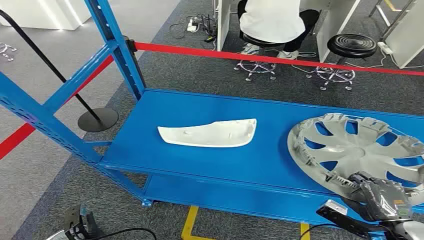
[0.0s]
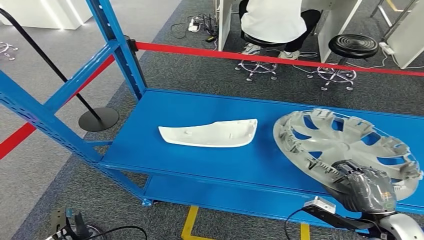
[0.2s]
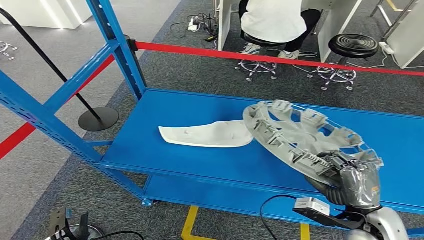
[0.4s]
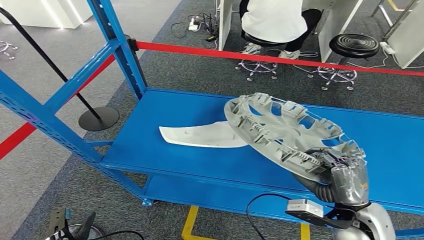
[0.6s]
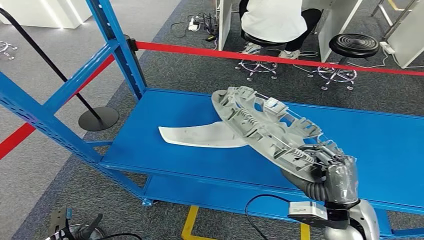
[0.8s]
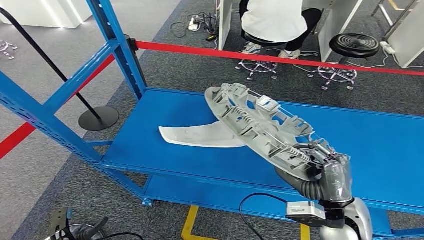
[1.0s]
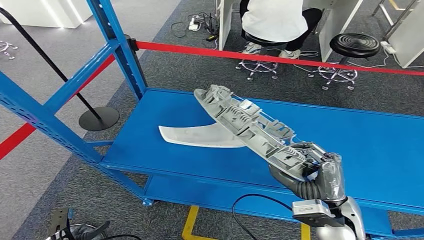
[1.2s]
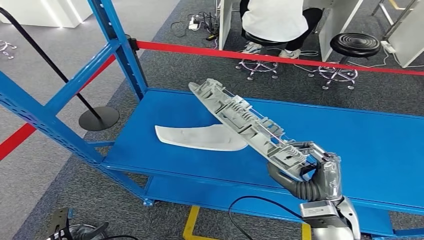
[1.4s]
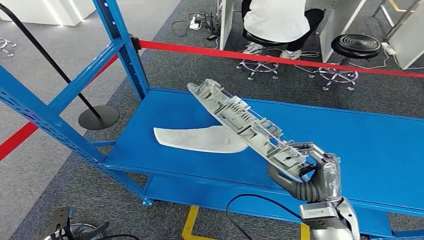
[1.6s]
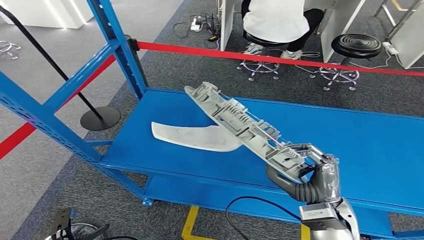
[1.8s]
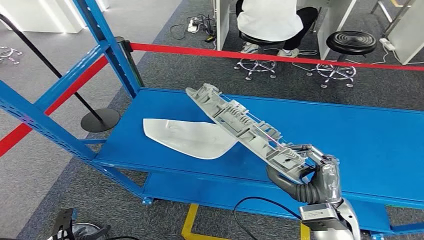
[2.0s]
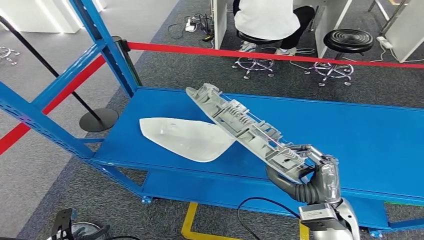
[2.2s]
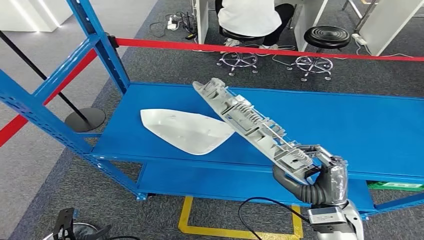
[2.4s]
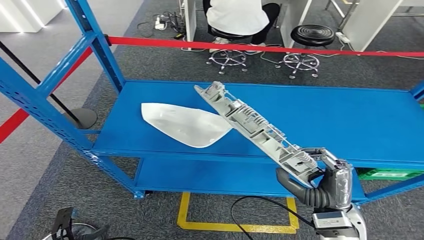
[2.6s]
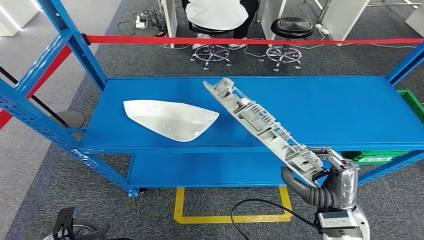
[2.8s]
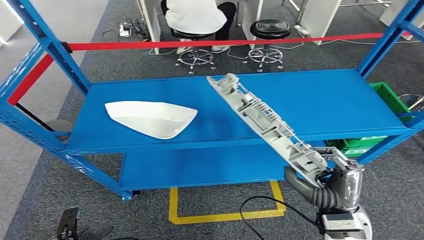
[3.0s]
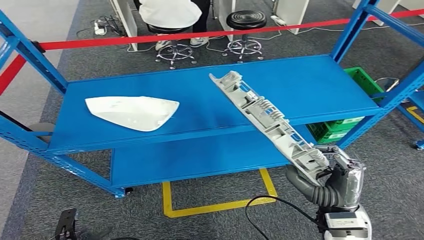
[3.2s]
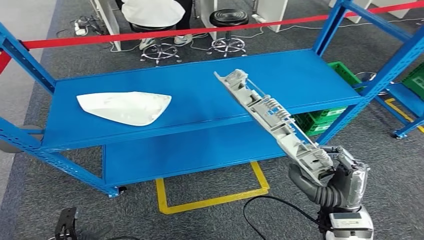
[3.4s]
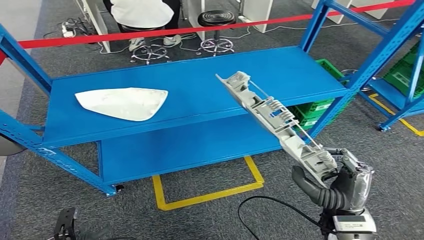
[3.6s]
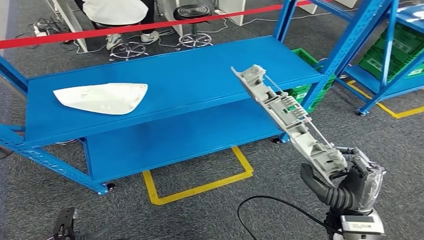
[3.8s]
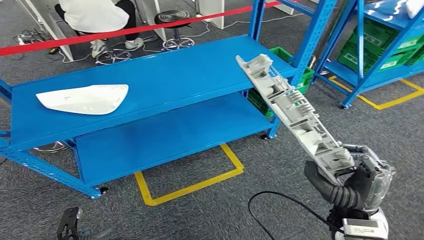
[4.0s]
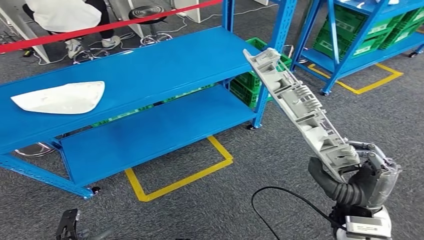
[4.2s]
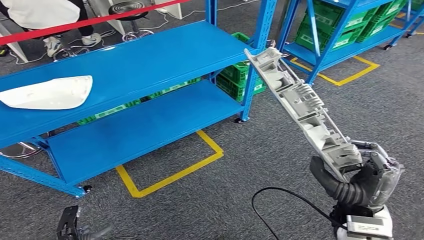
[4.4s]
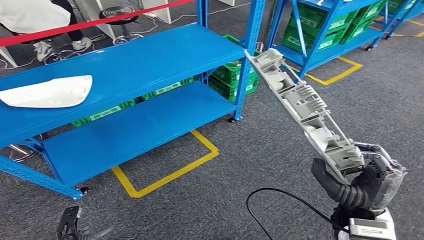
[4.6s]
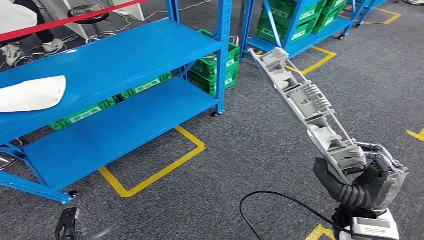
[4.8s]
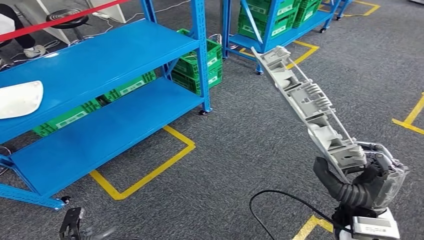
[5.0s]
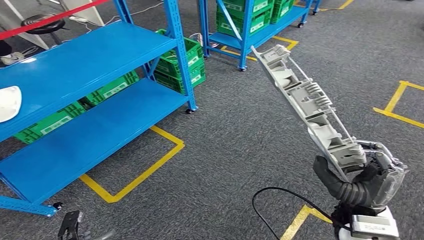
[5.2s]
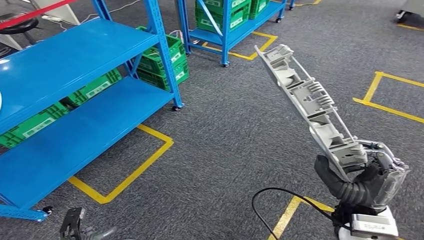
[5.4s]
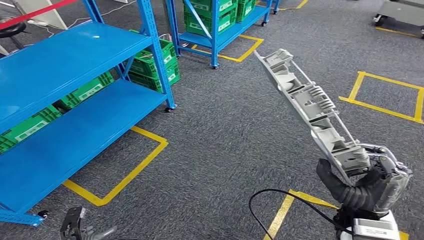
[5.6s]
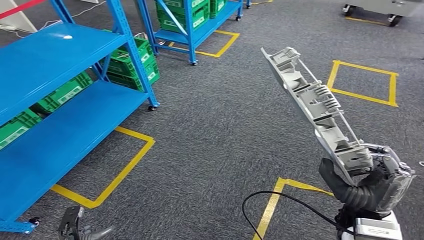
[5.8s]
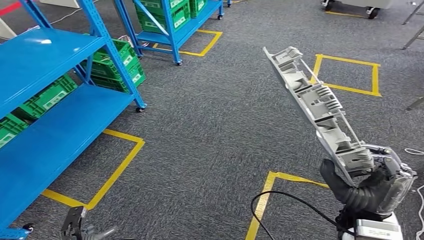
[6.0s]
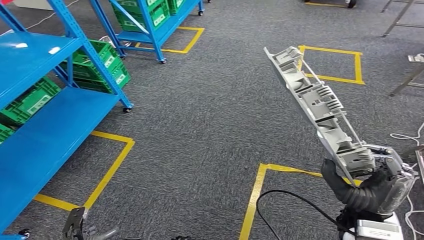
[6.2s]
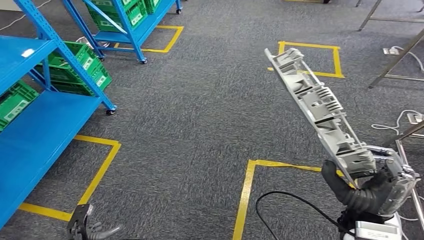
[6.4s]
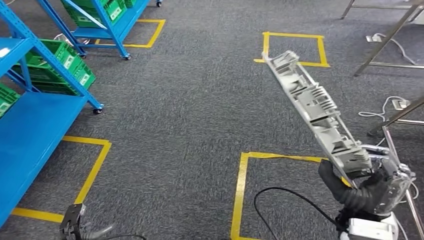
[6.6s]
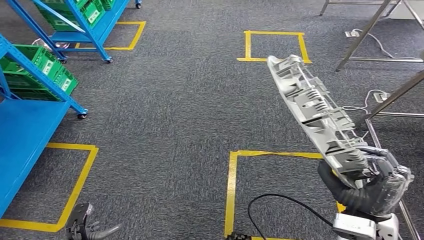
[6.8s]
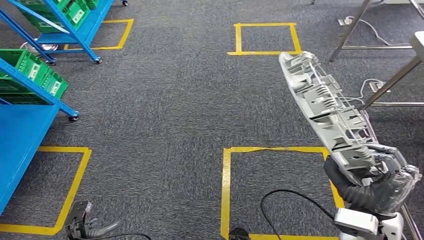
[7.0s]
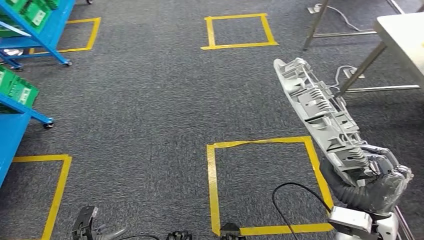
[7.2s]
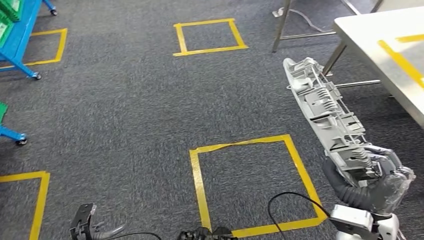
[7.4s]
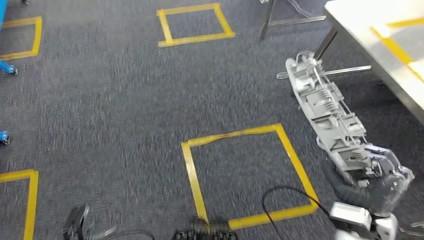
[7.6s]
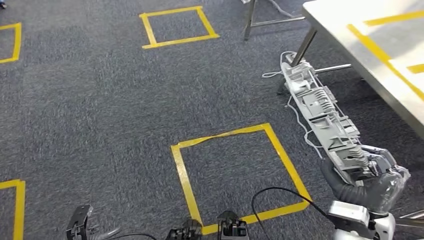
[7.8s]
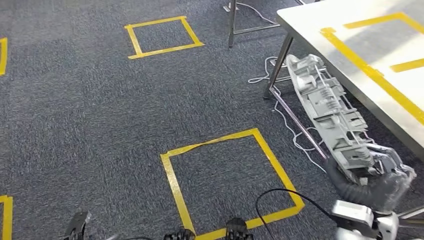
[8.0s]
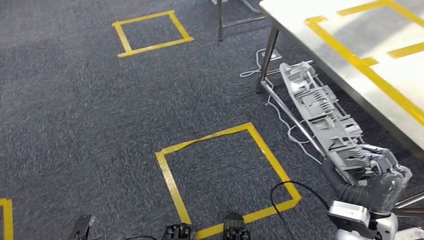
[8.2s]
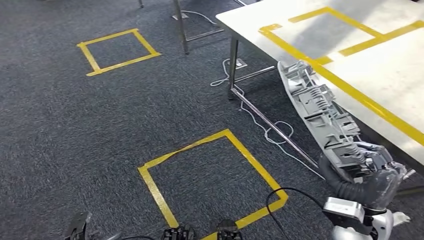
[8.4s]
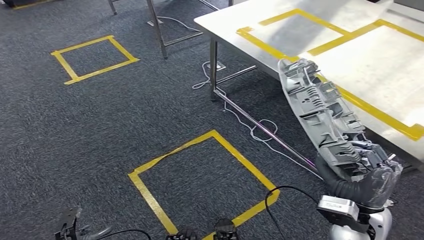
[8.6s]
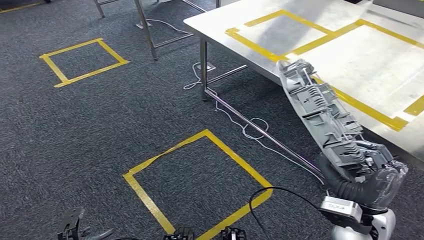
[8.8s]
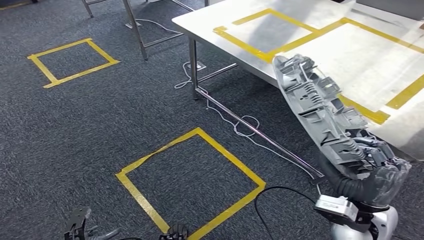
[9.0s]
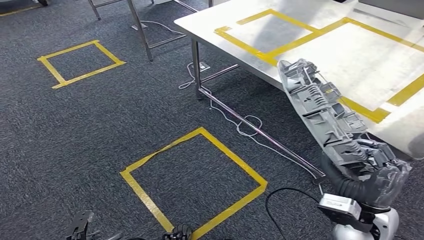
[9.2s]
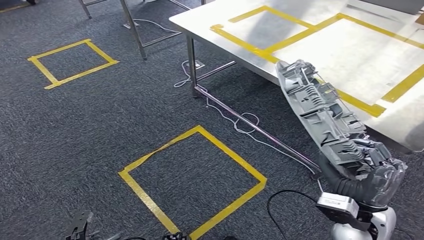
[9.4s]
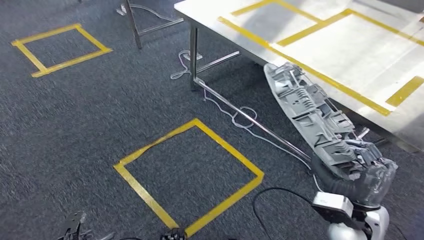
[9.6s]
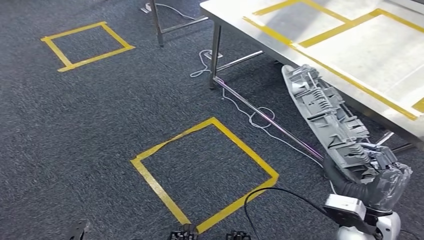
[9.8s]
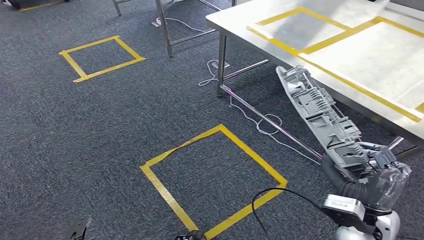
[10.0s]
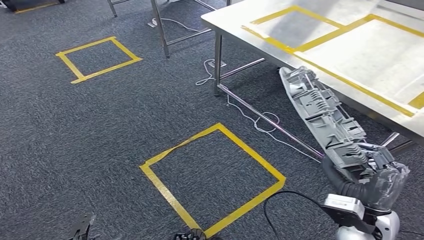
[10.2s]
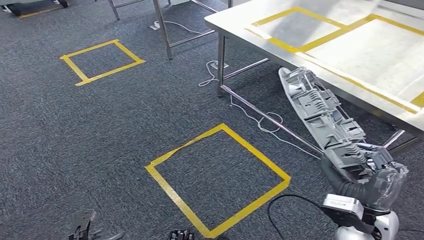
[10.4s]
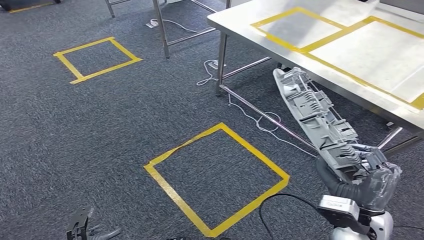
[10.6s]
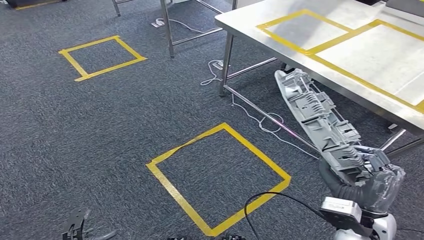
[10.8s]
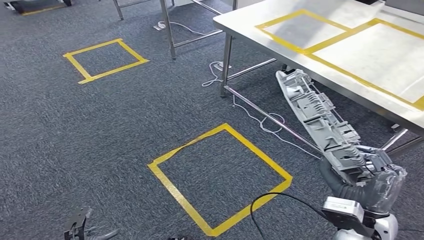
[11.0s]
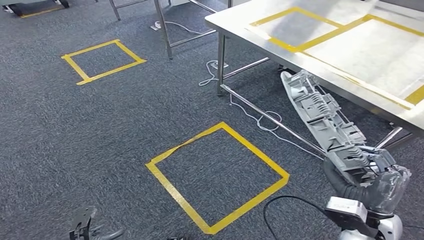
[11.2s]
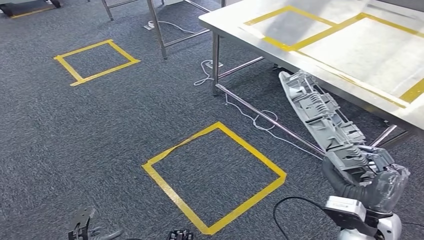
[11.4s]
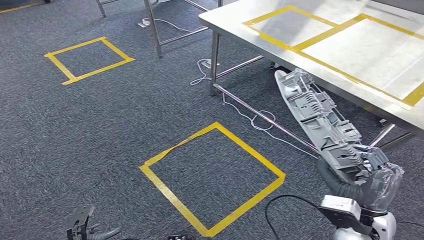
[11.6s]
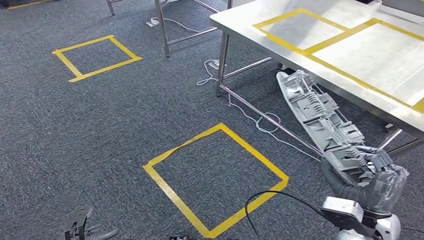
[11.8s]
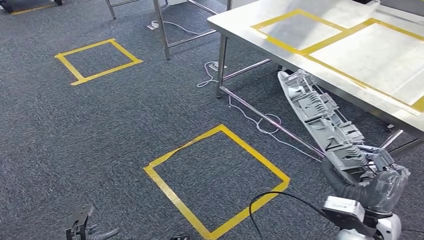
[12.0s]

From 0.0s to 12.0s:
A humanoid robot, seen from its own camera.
Step, from 0.0s to 3.6s: Pick up the small component from the shelf.
Step, from 3.8s to 9.2s: Move the small component to the workbench.
From 10.4s to 12.0s: Both hands stay put.

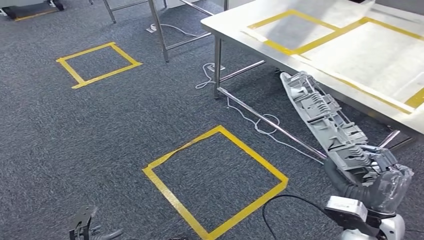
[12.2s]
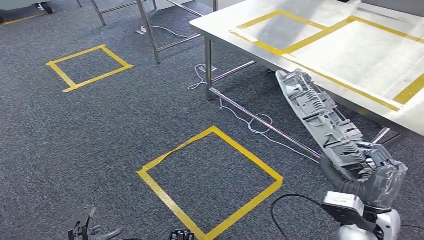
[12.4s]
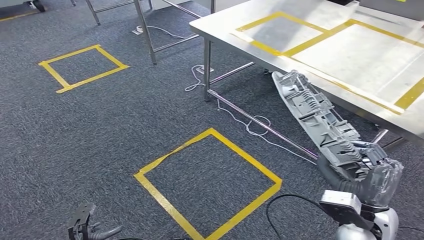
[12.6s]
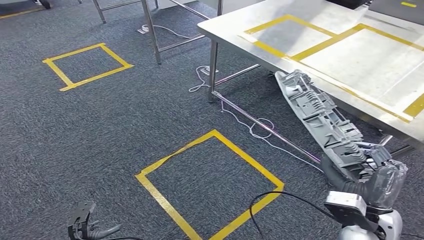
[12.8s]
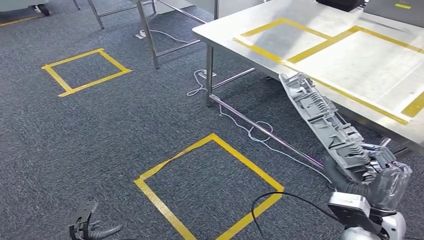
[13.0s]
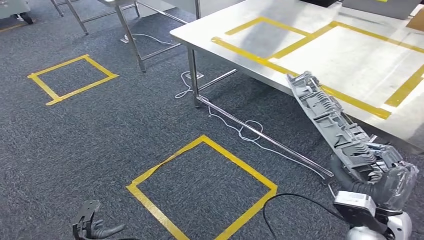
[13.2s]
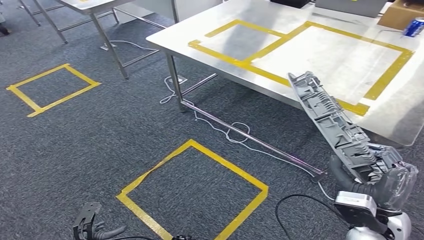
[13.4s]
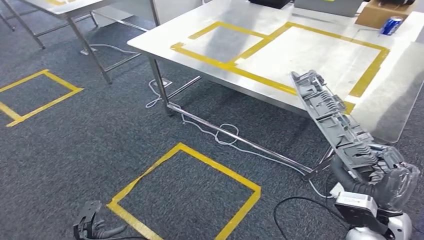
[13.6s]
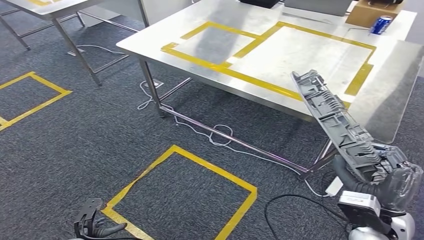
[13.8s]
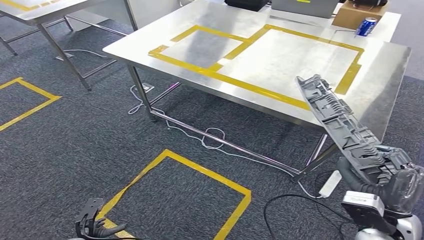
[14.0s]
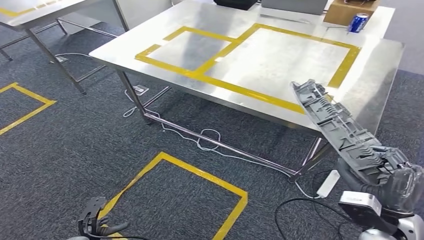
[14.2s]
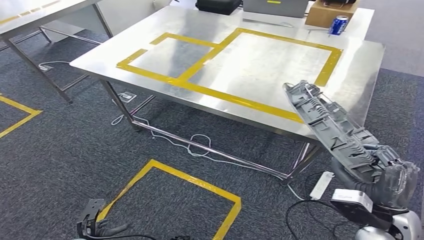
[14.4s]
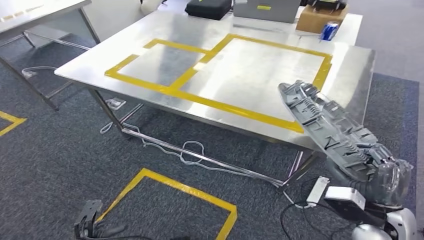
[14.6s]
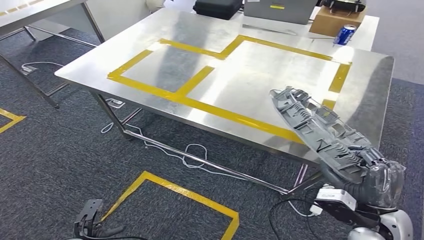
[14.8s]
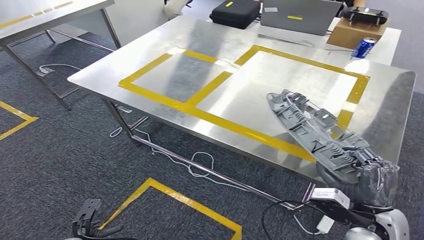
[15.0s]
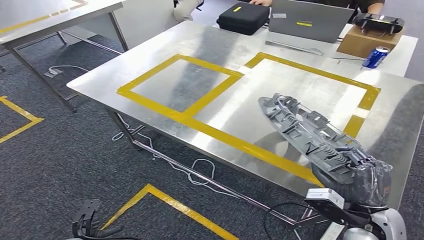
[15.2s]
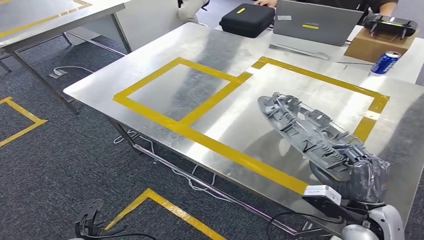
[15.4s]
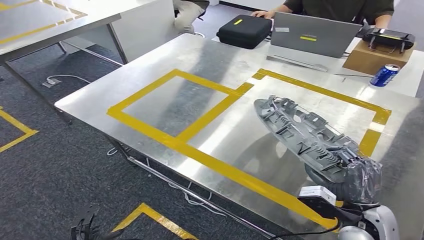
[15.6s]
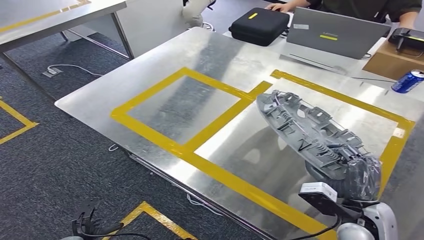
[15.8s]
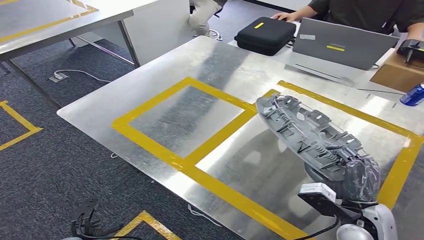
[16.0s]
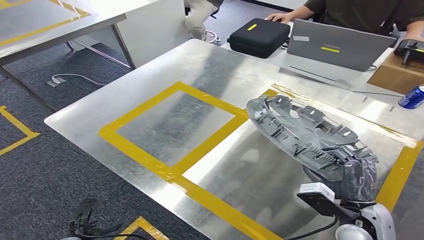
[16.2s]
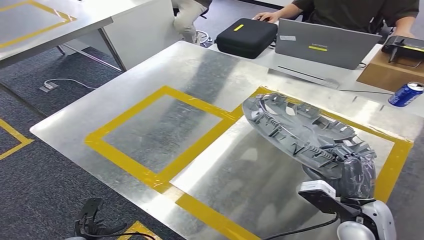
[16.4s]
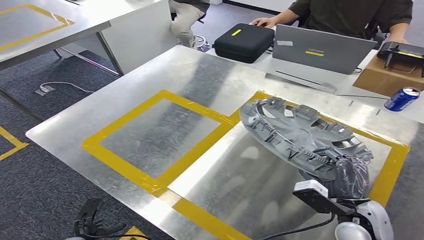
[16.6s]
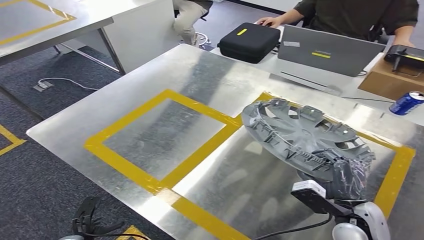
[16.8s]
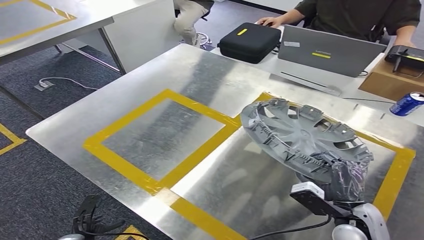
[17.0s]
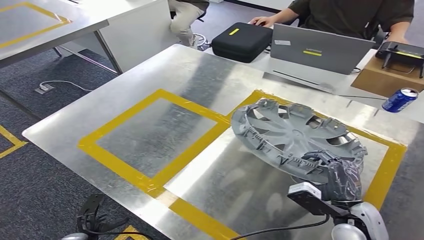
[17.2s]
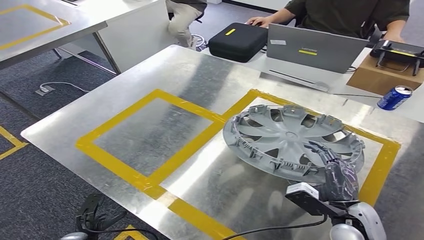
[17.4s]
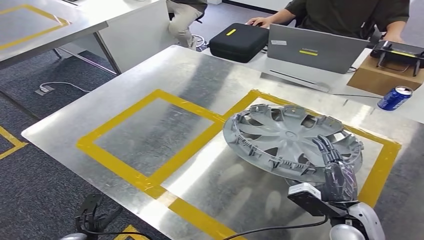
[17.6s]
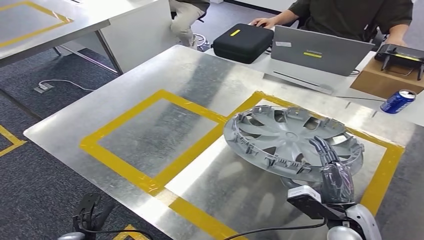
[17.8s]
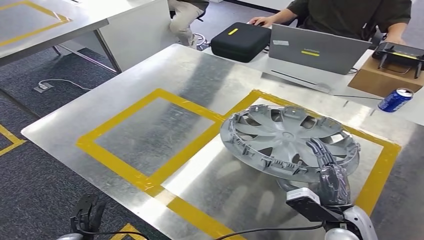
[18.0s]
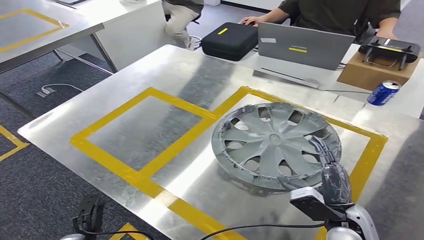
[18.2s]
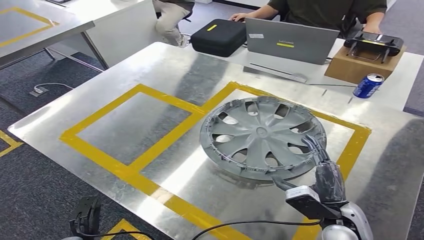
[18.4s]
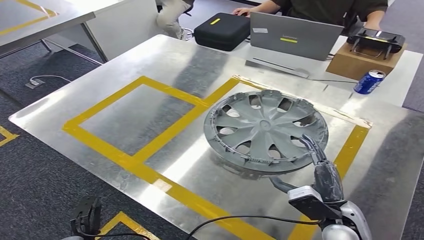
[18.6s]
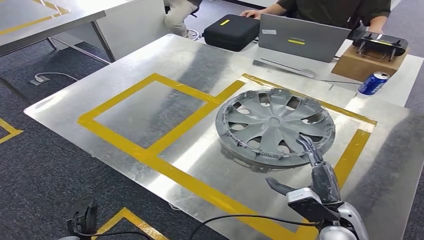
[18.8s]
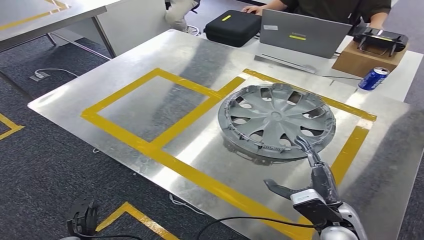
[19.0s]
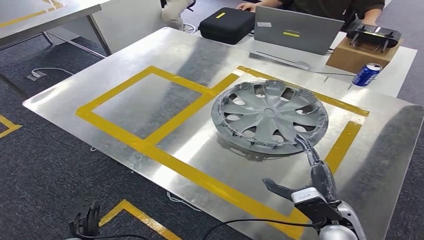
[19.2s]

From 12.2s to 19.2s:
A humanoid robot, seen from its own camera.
Step, from 12.2s to 18.8s: Insert the small component into the corresponding slot on the workbench.
